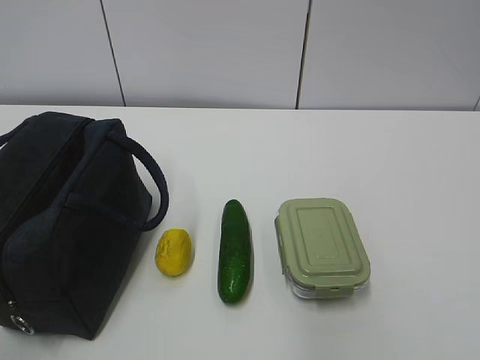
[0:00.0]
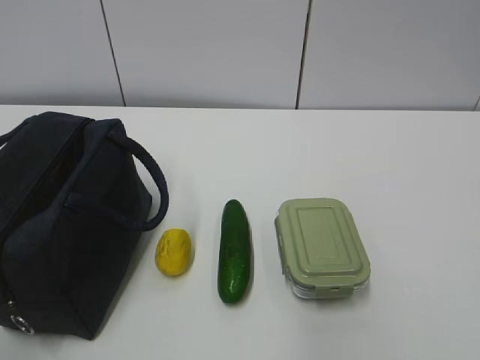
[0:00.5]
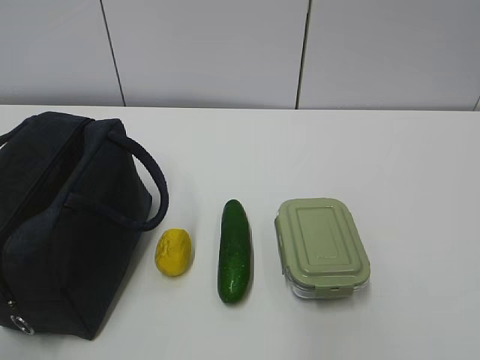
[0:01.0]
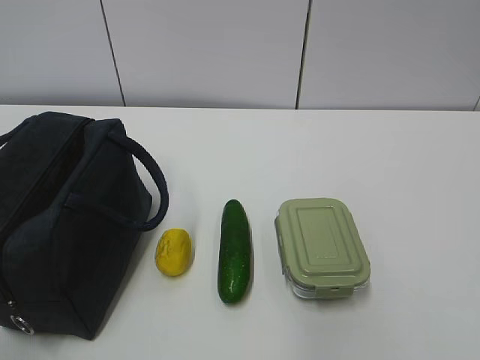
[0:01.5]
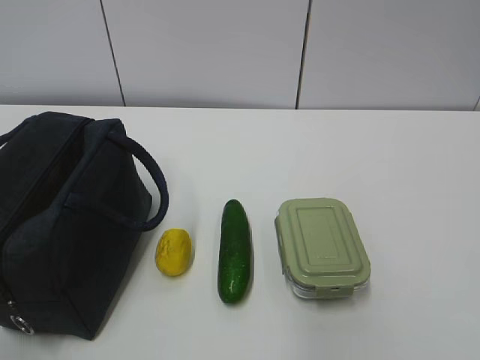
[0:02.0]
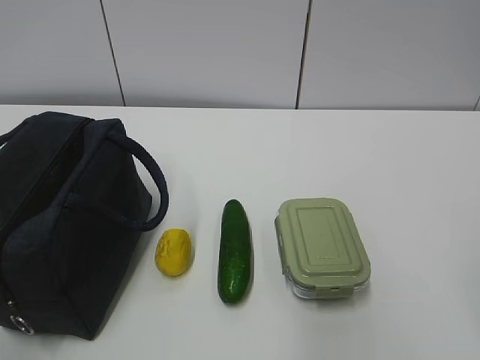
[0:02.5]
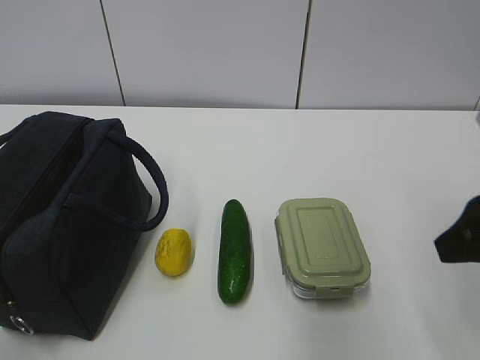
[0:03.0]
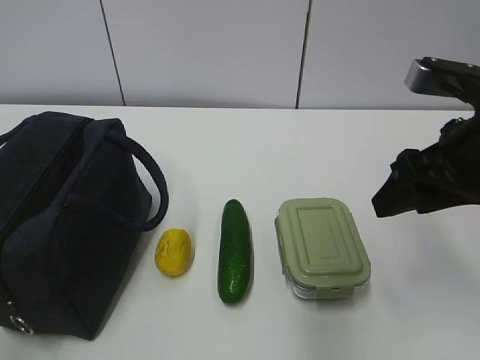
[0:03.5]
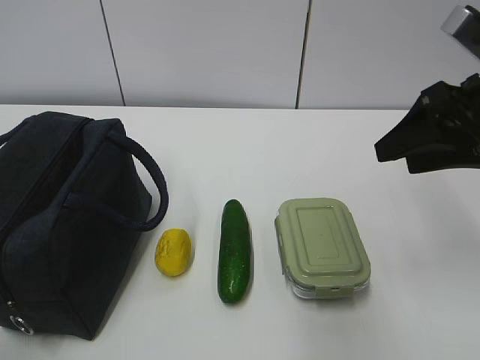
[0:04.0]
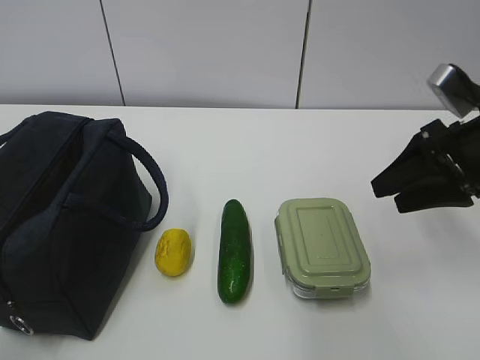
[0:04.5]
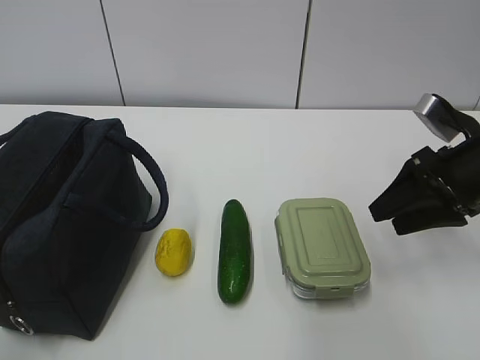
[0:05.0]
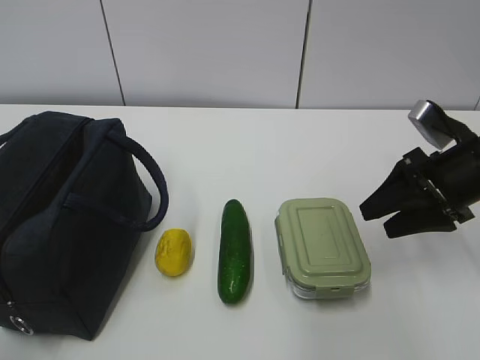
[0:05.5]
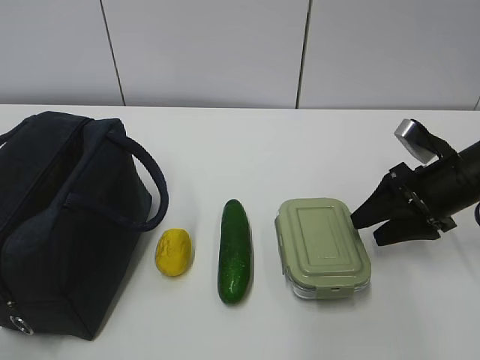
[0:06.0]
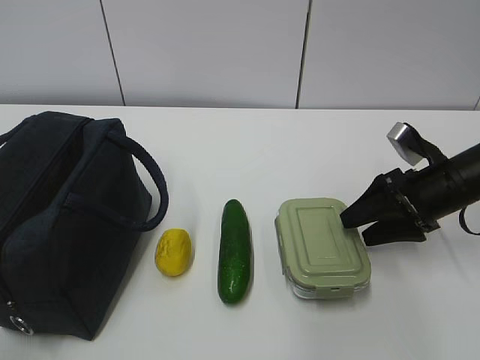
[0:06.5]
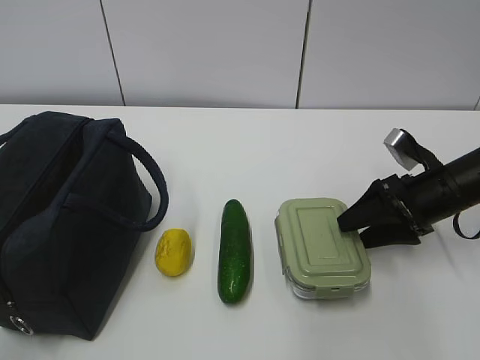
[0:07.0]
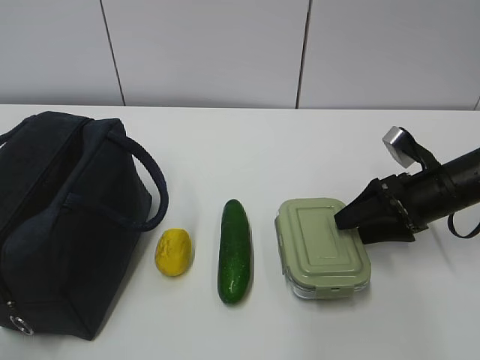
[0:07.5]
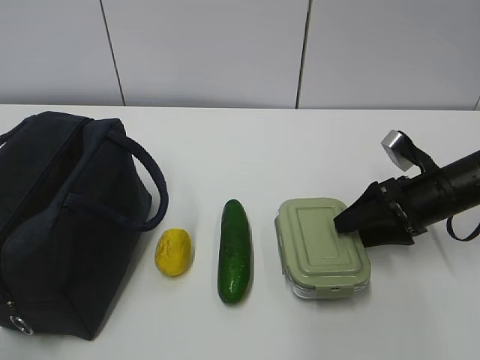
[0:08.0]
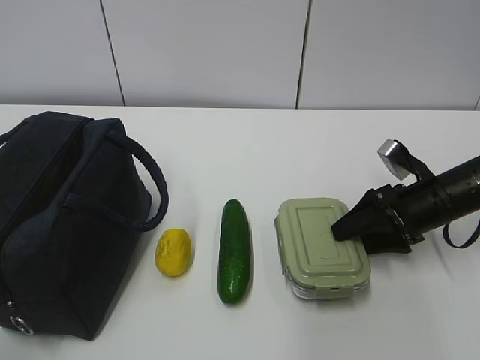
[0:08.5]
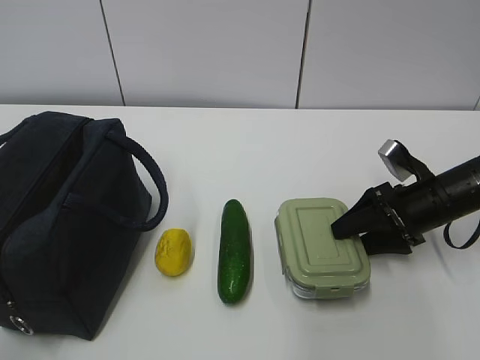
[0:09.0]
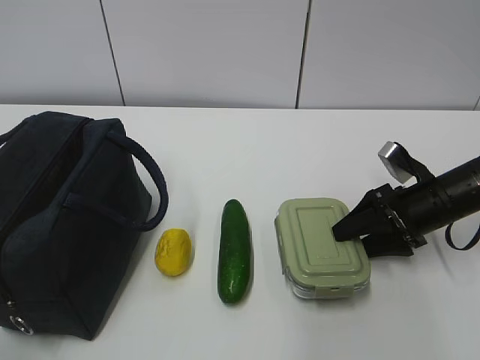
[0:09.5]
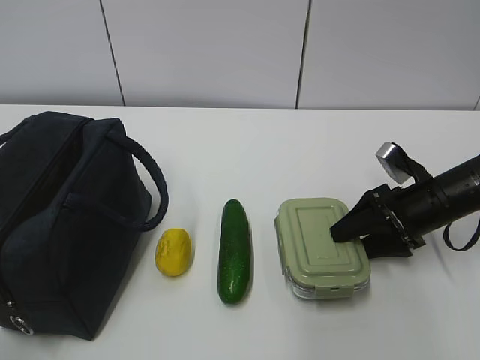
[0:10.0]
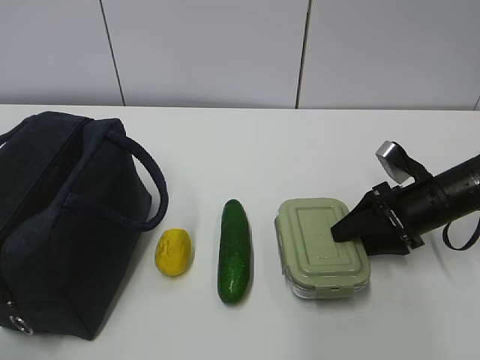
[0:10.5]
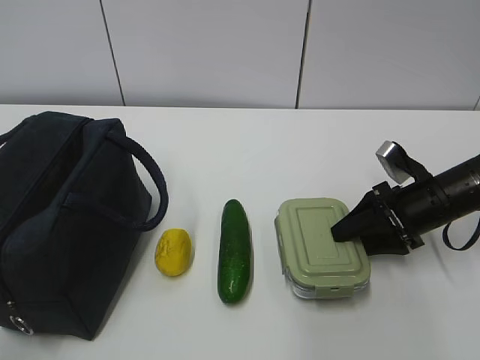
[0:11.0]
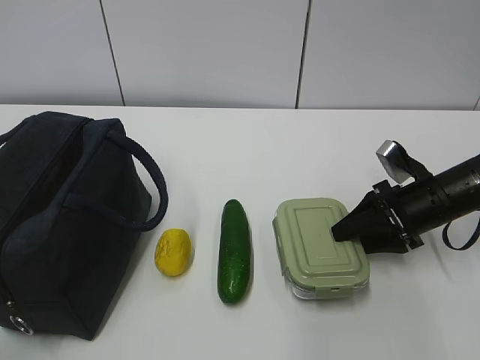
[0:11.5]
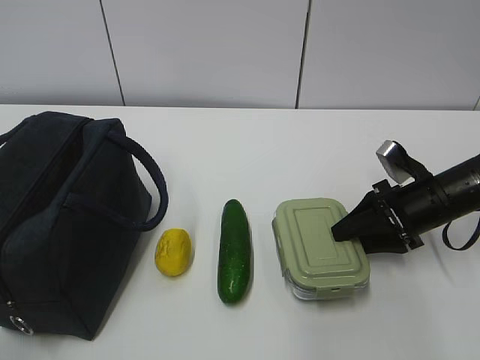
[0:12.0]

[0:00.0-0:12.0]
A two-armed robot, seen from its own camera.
0:02.0 to 0:04.0: The right gripper is displaced forward by some 30 cm.
0:04.0 to 0:06.0: The right gripper travels downward and forward by approximately 15 cm.
0:06.0 to 0:10.0: The grippers move only a little.
0:10.0 to 0:12.0: The two grippers keep their place.

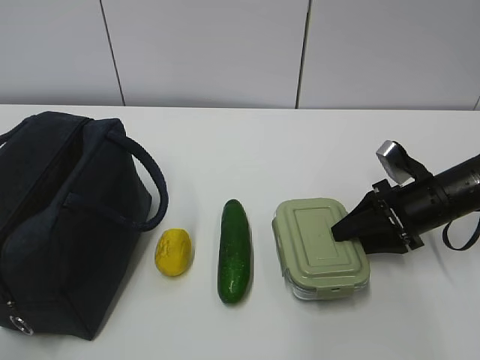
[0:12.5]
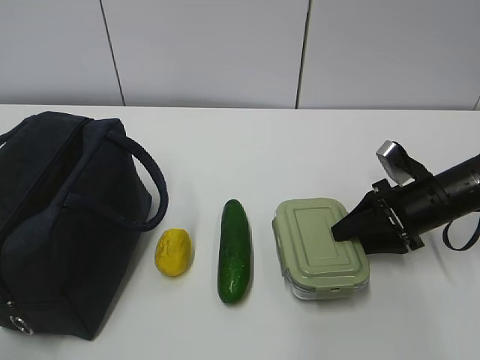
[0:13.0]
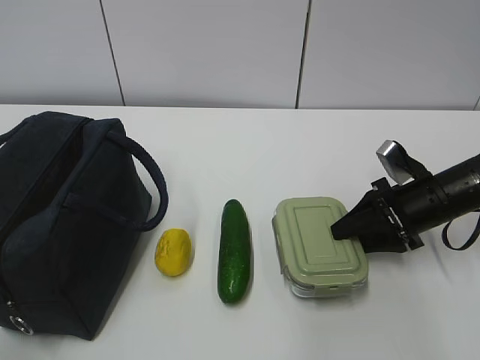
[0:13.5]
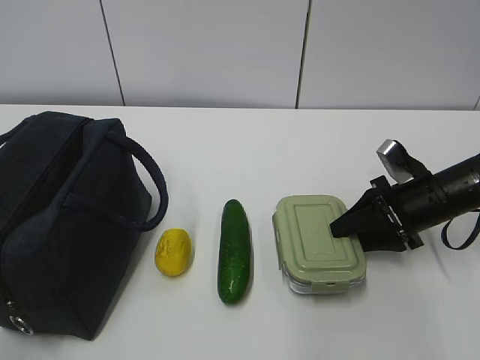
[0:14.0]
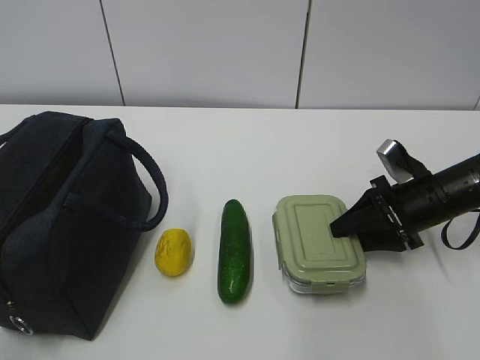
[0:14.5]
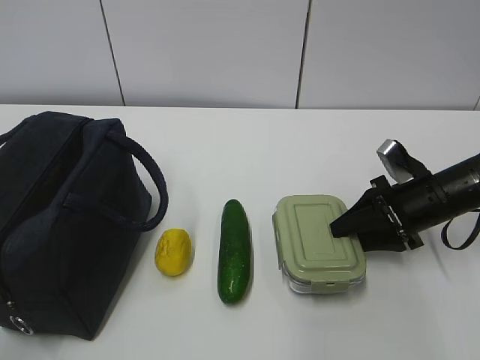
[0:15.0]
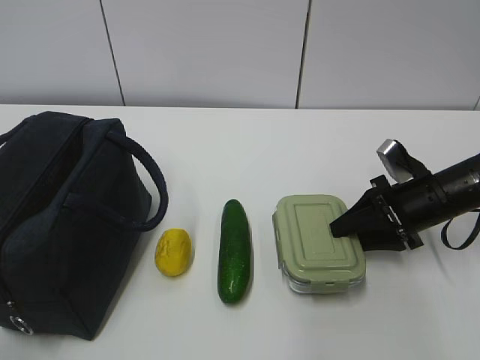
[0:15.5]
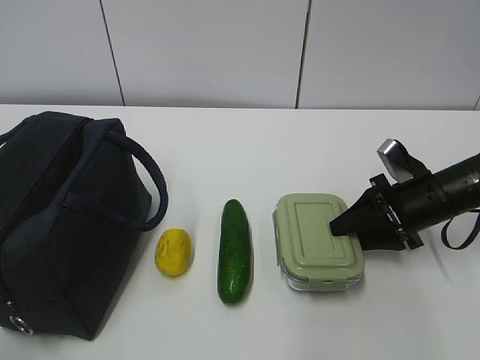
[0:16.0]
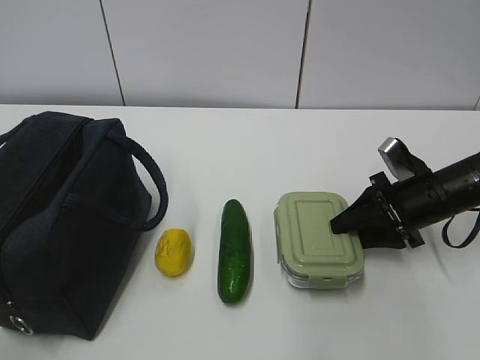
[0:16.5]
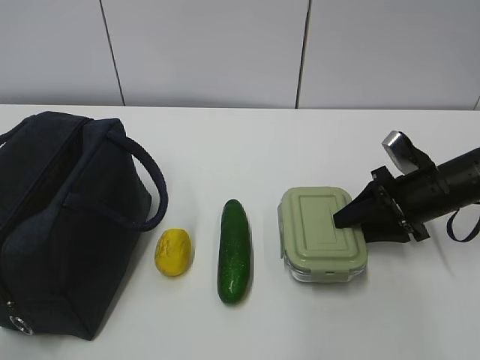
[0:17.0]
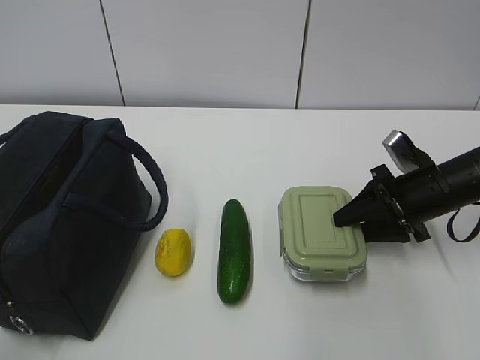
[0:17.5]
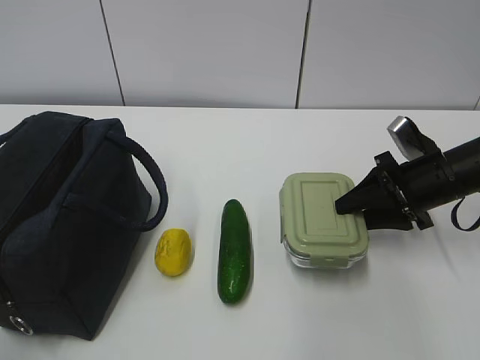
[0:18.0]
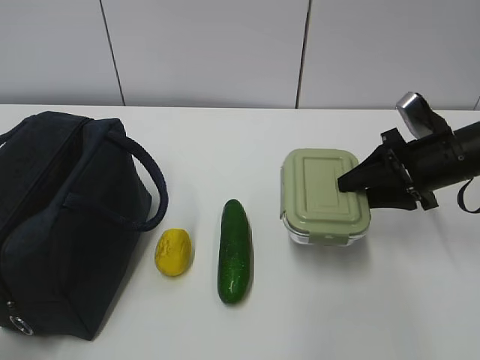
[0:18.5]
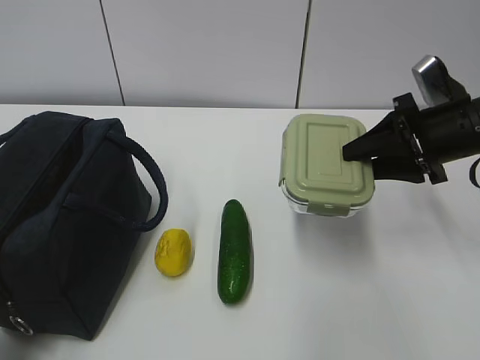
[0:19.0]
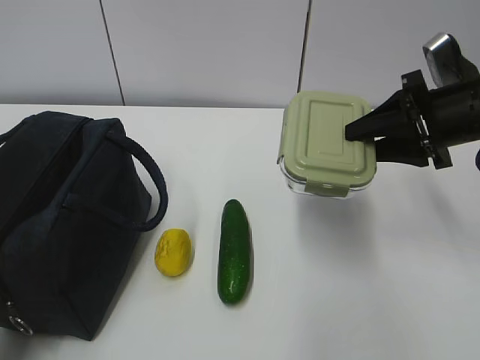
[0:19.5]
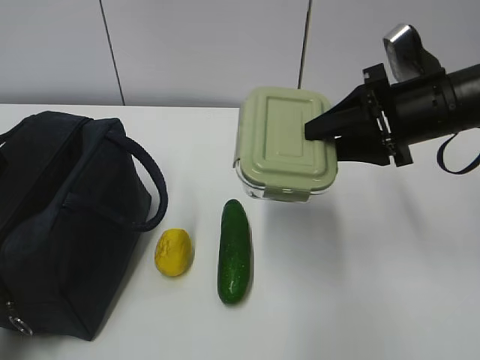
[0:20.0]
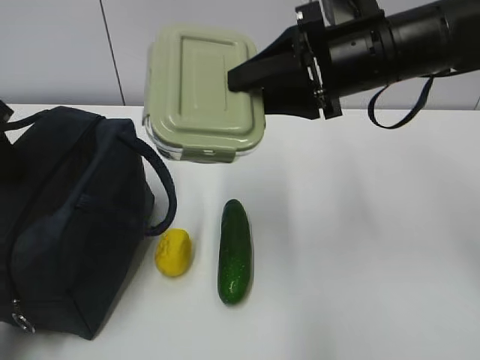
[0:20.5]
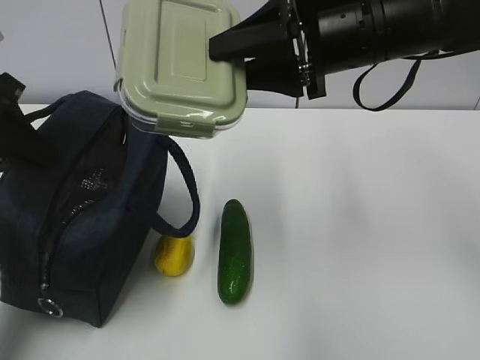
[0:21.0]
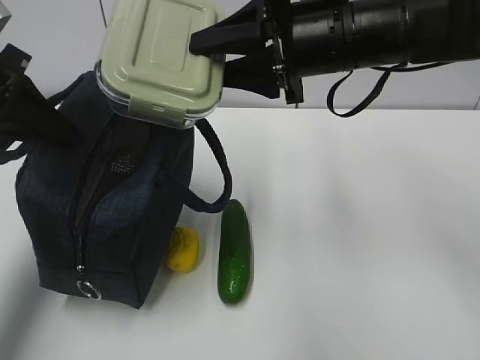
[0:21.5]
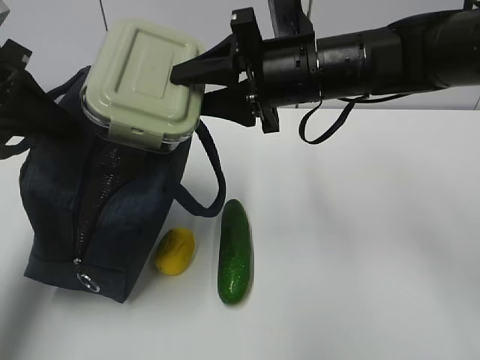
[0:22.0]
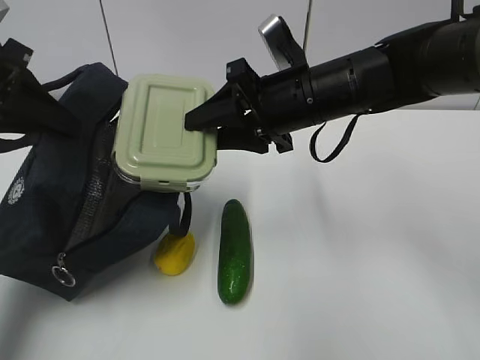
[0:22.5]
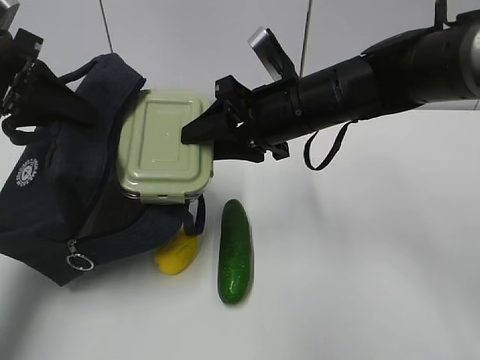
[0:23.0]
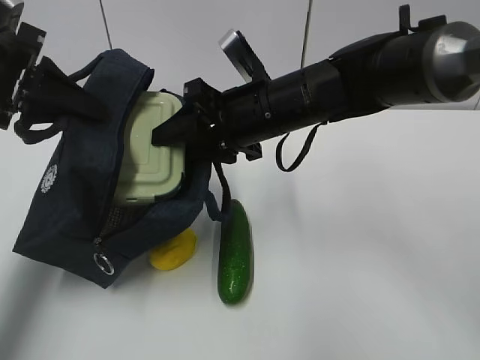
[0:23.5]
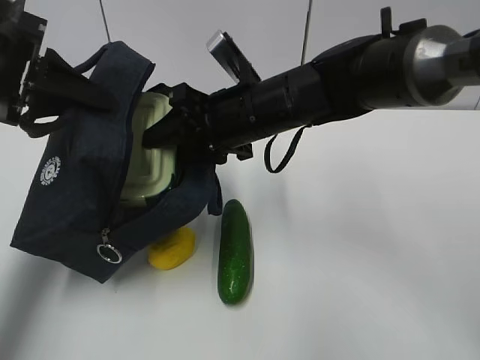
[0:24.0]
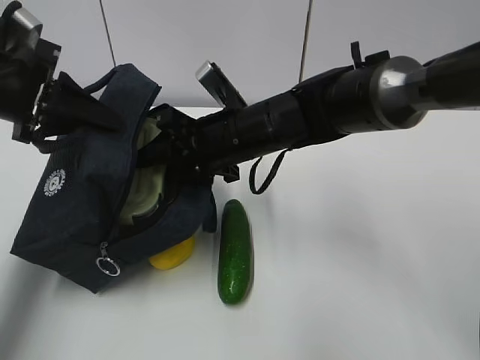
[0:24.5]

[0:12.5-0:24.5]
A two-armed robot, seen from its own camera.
Step, 0:14.5 to 0:18.0: Grab the lunch bag with your left hand.
Step, 0:18.5 to 0:23.0: Place it into the bag with your right hand.
0:12.5 to 0:14.5: Both grippers stay about where they are.
0:14.5 to 0:16.5: Both grippers stay about where they are.
0:16.5 to 0:18.5: The left gripper shifts by some 5 cm. Meanwhile the right gripper travels upward by about 5 cm.
0:18.5 to 0:20.5: The right gripper moves upward and to the left, some 20 cm; the left gripper heads forward, covering roughly 25 cm, and closes up.
0:20.5 to 0:22.5: The right gripper heads downward and to the left, covering some 5 cm.
0:22.5 to 0:24.5: The right gripper travels to the left by roughly 5 cm.

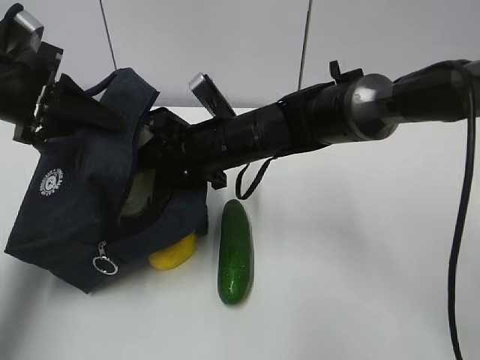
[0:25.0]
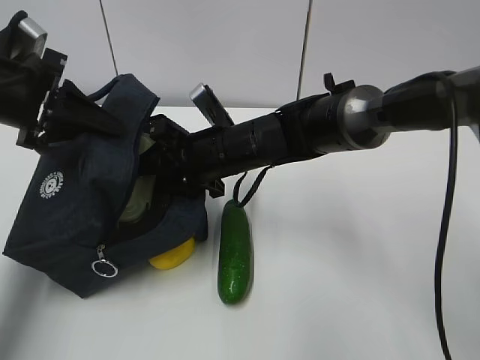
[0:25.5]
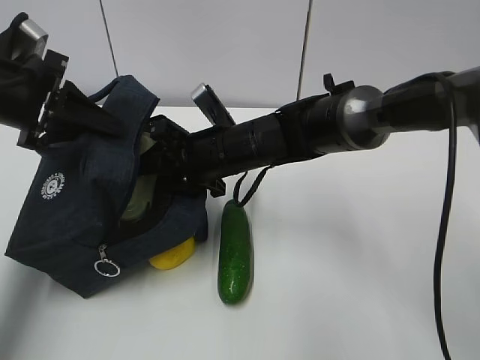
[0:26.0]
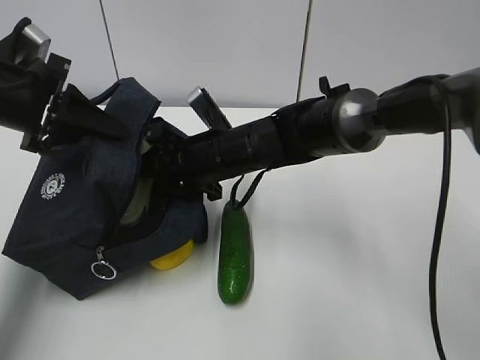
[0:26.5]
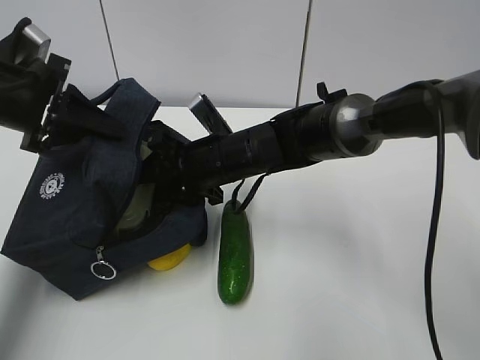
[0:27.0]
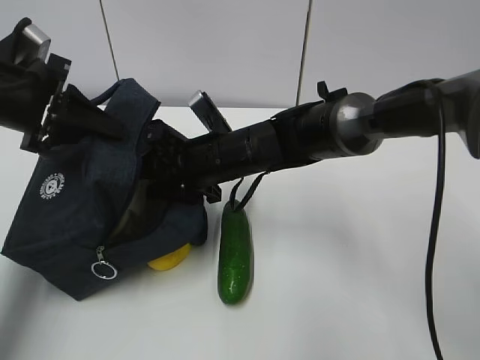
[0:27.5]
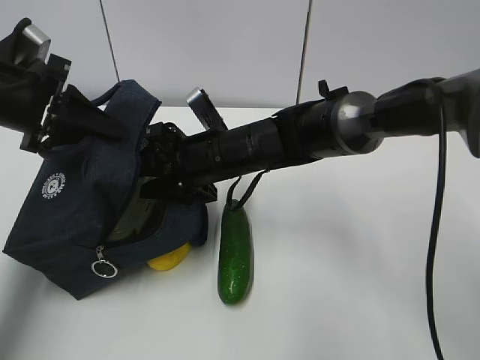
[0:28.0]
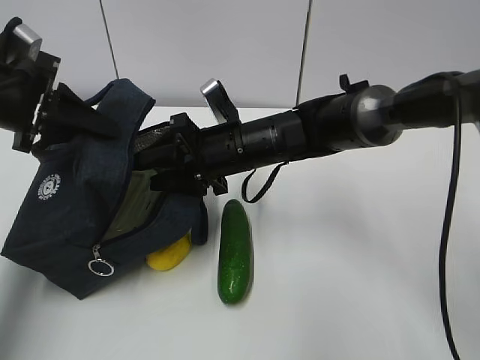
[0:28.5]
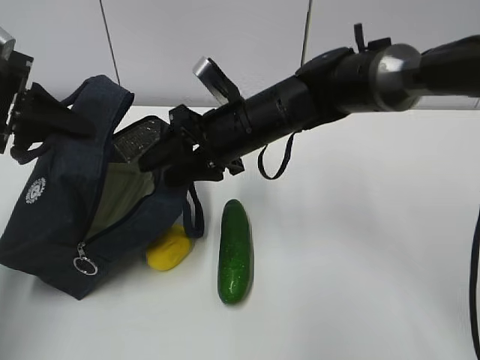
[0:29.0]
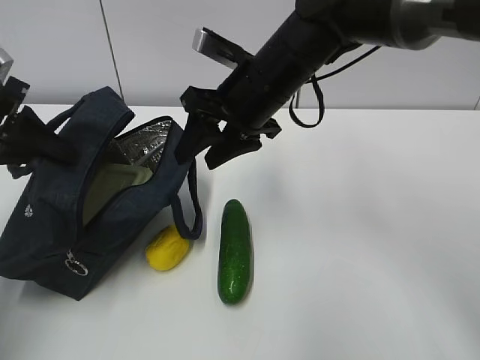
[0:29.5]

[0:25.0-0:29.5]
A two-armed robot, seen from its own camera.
Step, 0:25.0 to 0:27.0: Grab the cucumber with your right hand.
0:25.0 to 0:27.0: The grippers make only small movements.
0:27.0 to 0:29.5: The right gripper travels upward by some 10 cm; the left gripper moves roughly 5 cm.
